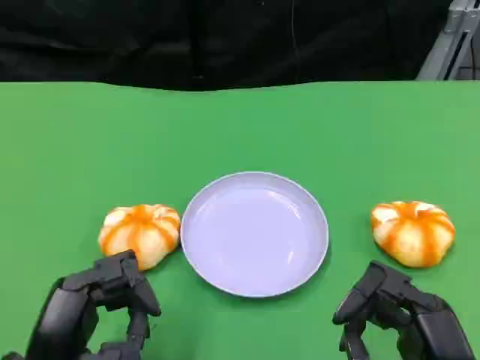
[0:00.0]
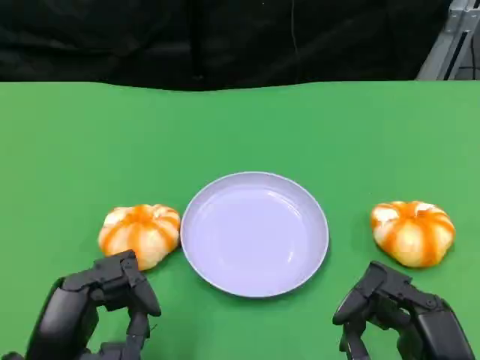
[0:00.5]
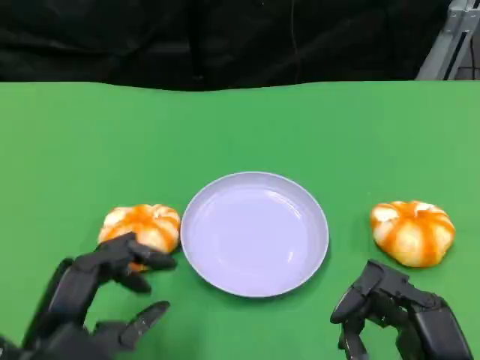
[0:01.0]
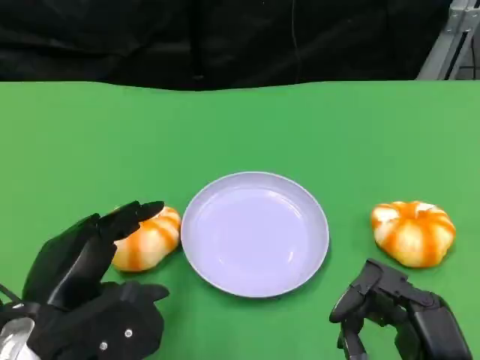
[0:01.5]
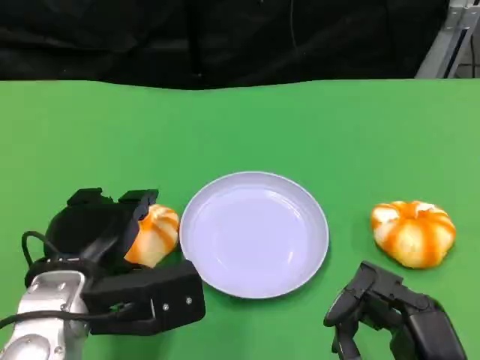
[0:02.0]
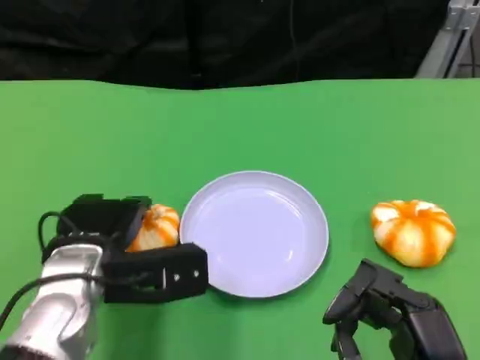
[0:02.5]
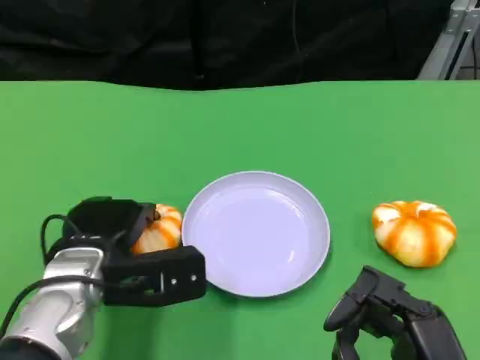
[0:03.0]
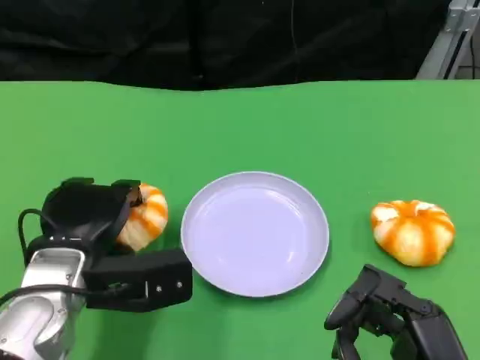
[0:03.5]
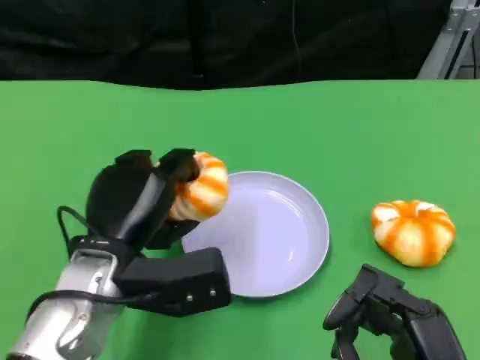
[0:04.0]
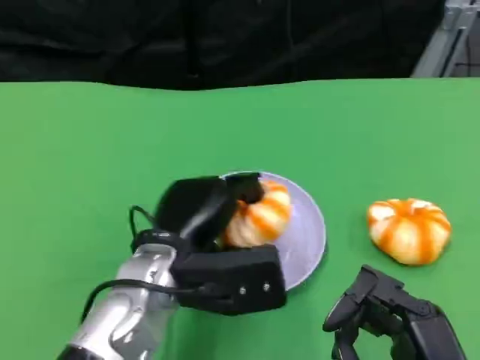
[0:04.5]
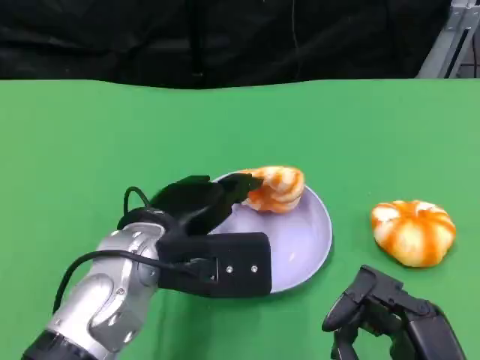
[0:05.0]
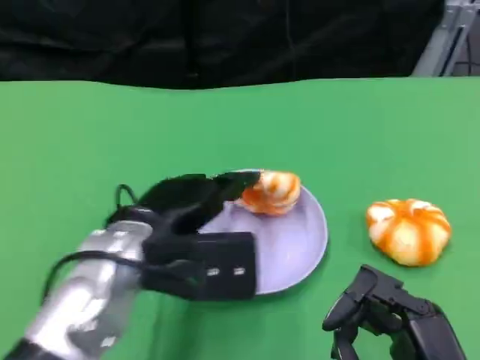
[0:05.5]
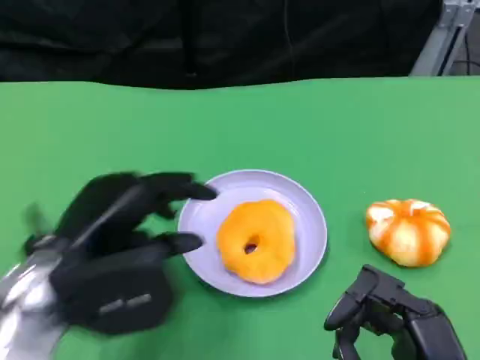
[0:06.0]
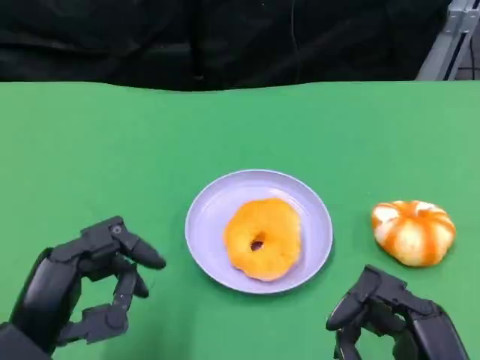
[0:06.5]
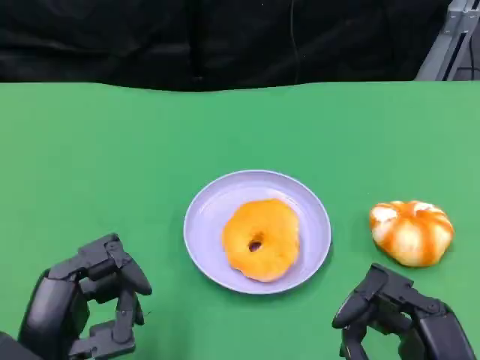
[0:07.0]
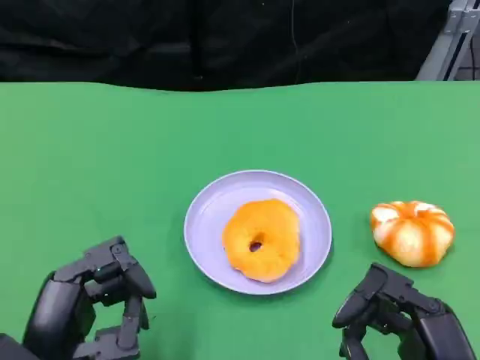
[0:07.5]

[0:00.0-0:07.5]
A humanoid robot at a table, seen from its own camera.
Task of the whole recording: Grasp the bread from the table and place it into the plate.
0:00.0 to 0:02.0: The left hand shifts about 10 cm forward.
0:04.0 to 0:05.5: The left hand shifts by approximately 5 cm.
0:05.5 to 0:07.5: The left hand travels backward, to the left and downward by approximately 15 cm.

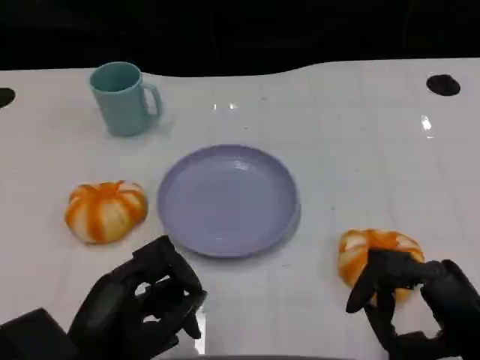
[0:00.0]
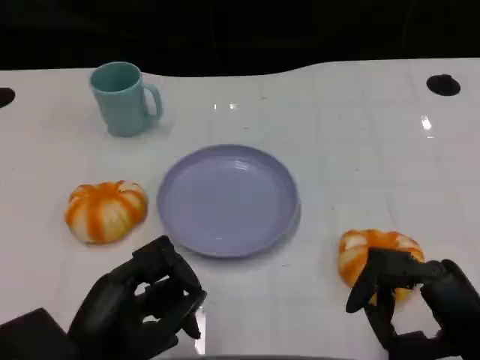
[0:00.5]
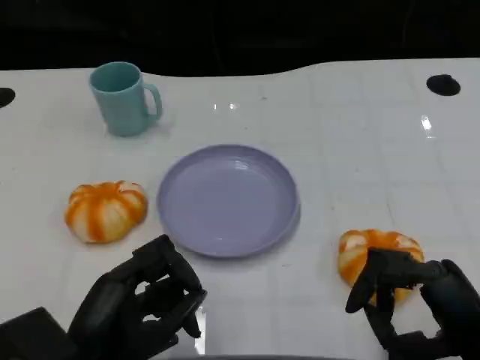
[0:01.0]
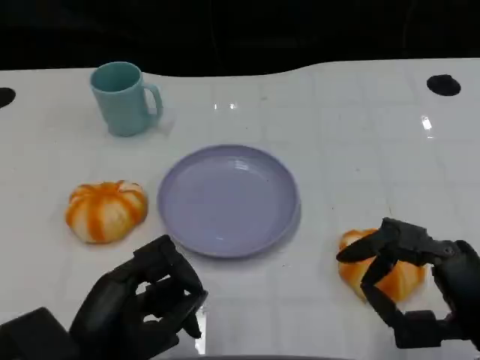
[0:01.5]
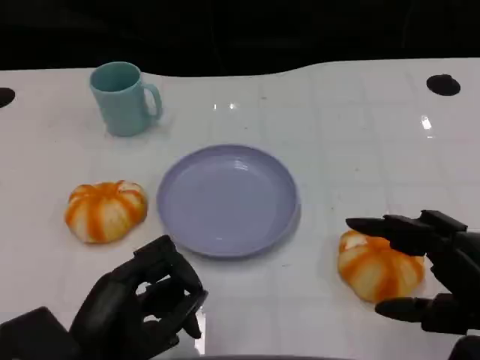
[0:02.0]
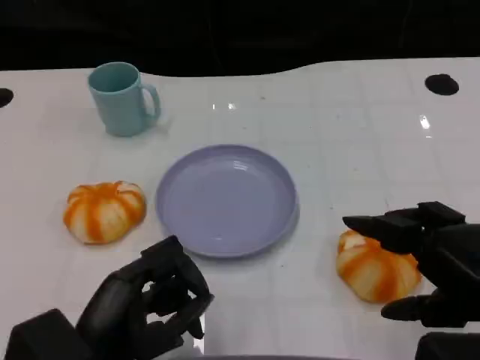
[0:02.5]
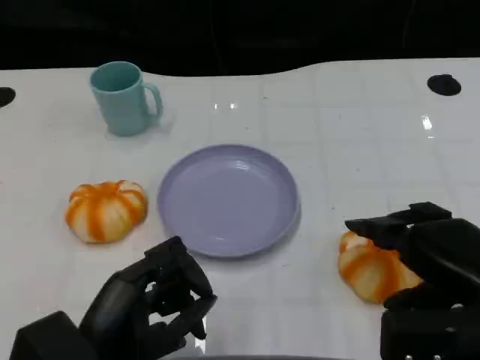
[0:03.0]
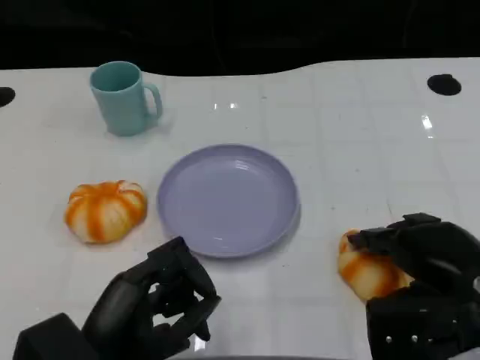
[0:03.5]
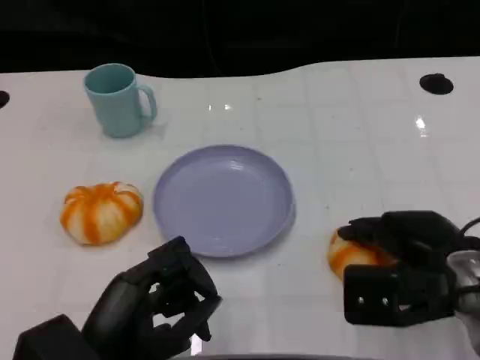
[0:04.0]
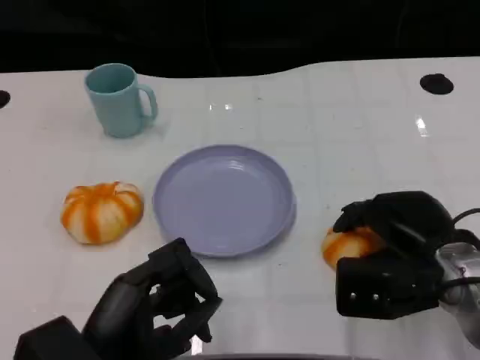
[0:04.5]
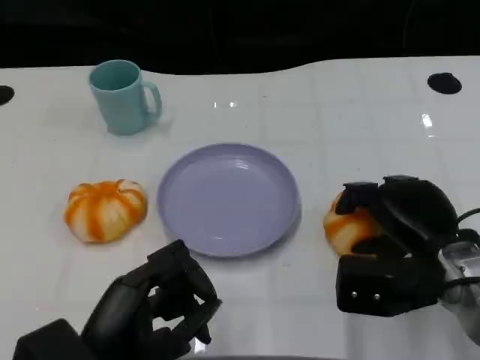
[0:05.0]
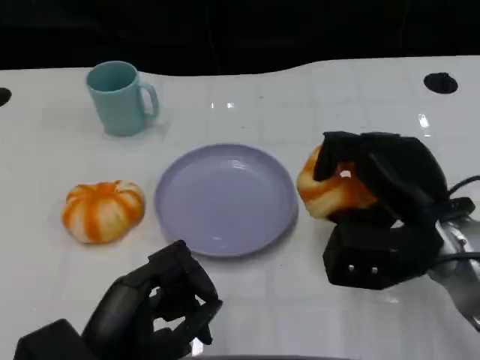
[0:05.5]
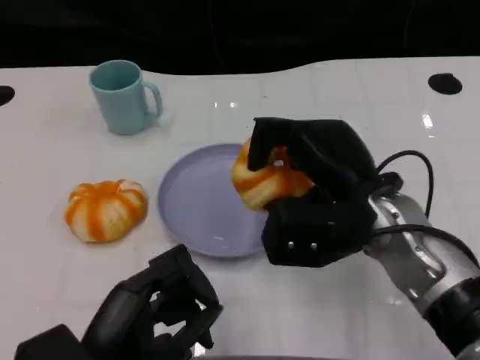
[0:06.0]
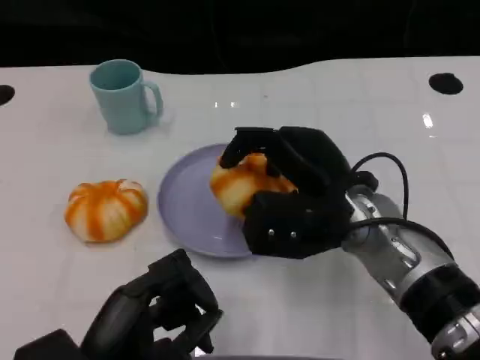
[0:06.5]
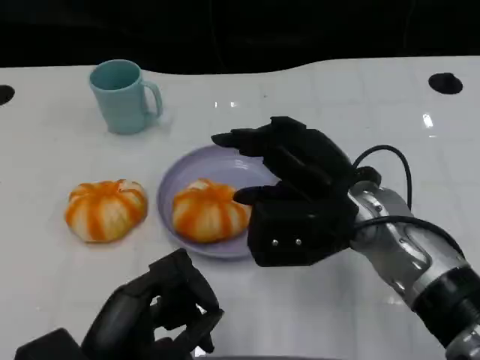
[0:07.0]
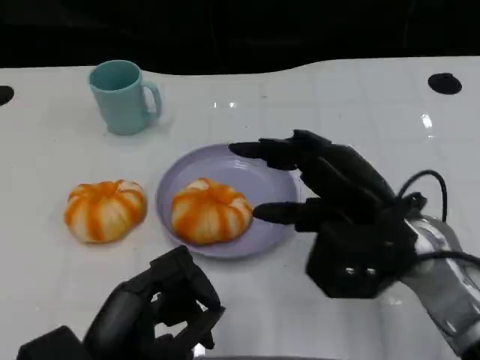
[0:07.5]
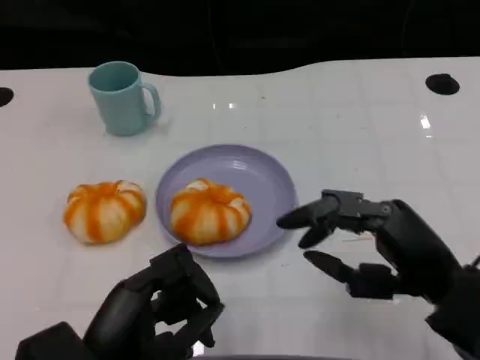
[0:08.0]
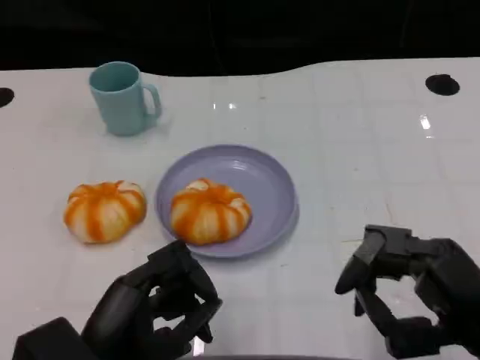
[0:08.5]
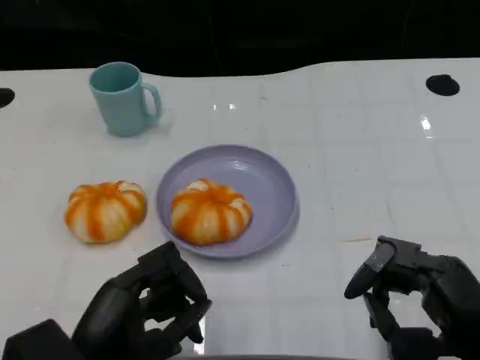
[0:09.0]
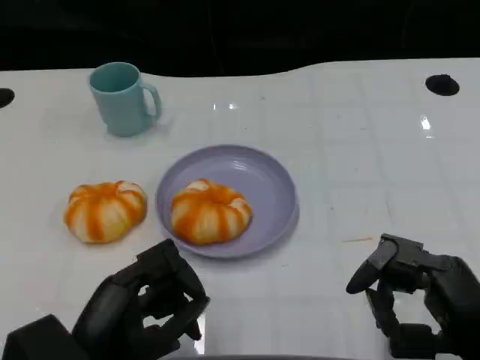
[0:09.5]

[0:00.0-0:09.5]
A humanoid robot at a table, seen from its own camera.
Task of the whole recording: Grasp the bread from the table and place it into the plate.
0:00.0 to 0:02.0: The right hand moves upward, roughly 5 cm.
0:02.0 to 0:04.0: The right hand heads forward, covering roughly 10 cm.
0:05.5 to 0:07.5: The right hand moves approximately 10 cm to the left and comes back.
0:07.5 to 0:09.5: The right hand goes about 15 cm backward, to the right and downward.

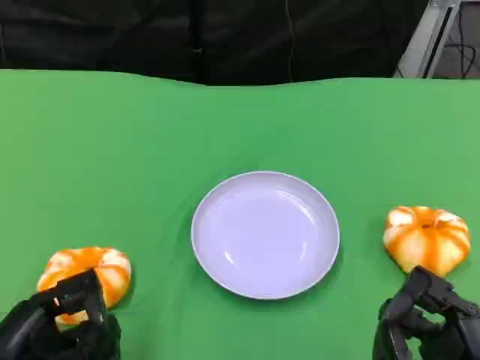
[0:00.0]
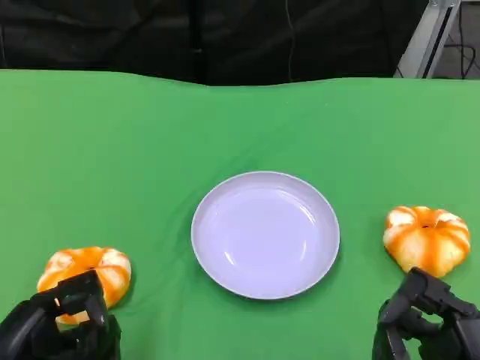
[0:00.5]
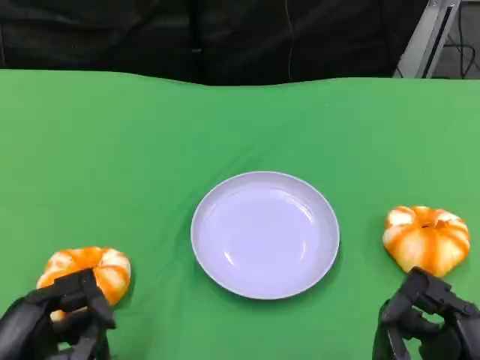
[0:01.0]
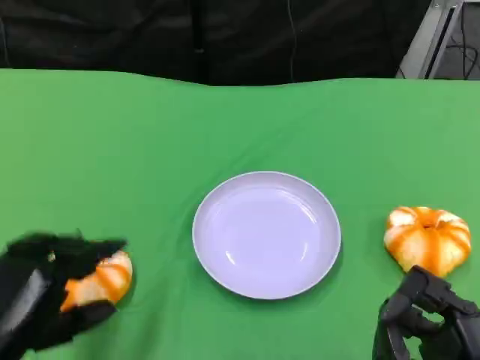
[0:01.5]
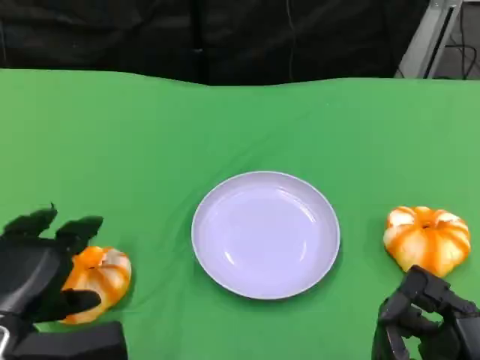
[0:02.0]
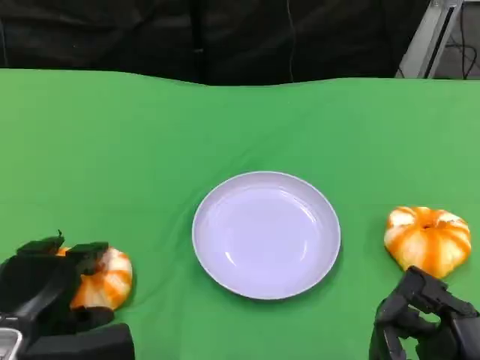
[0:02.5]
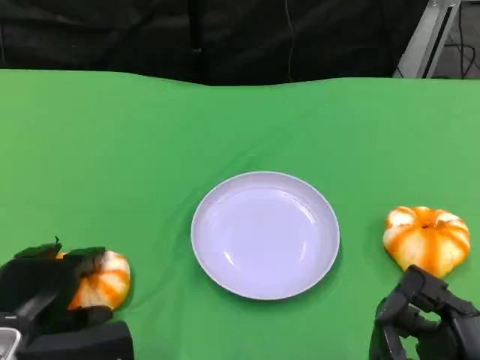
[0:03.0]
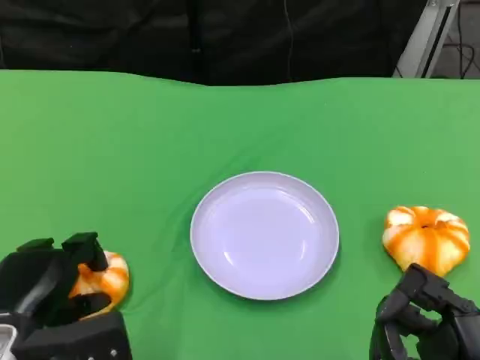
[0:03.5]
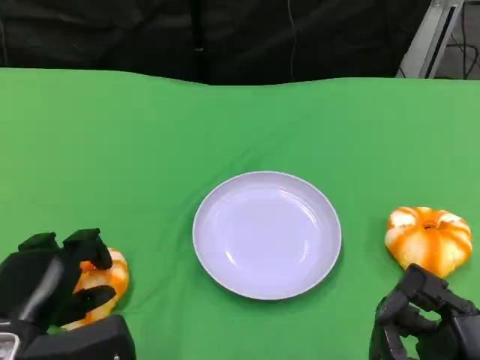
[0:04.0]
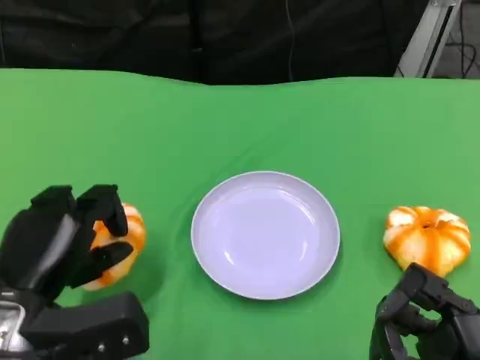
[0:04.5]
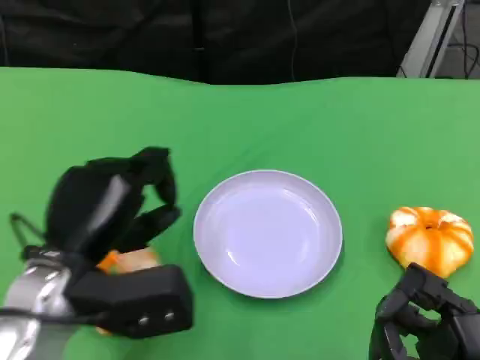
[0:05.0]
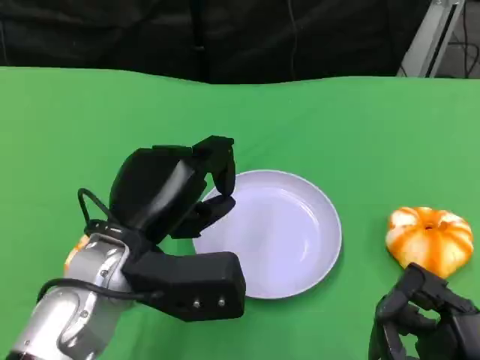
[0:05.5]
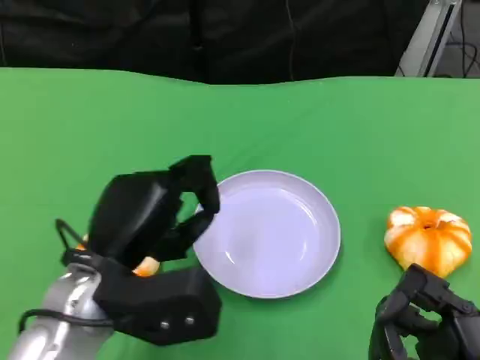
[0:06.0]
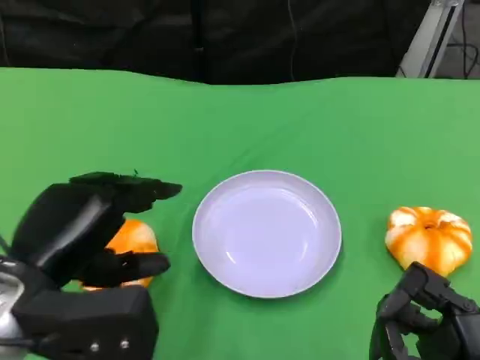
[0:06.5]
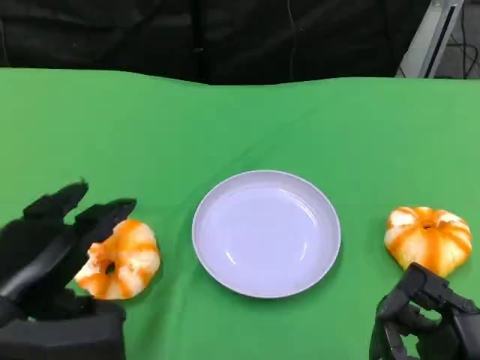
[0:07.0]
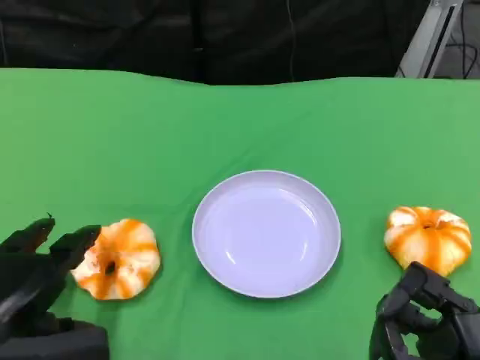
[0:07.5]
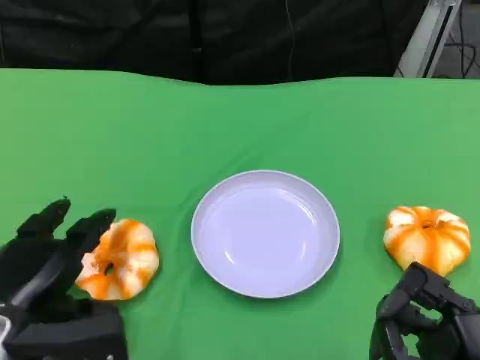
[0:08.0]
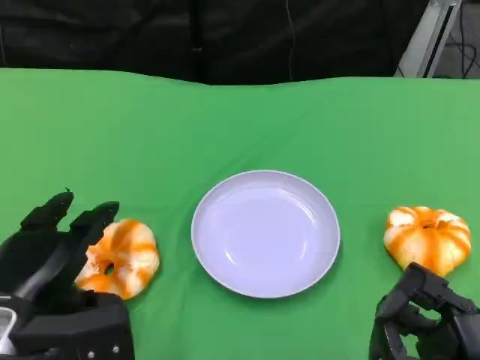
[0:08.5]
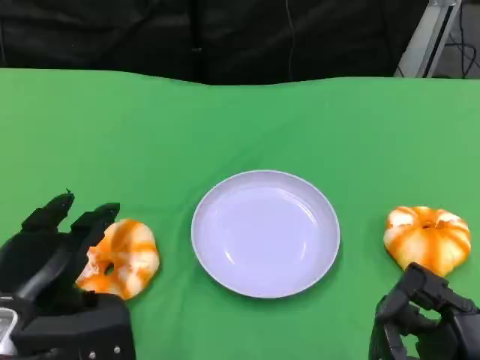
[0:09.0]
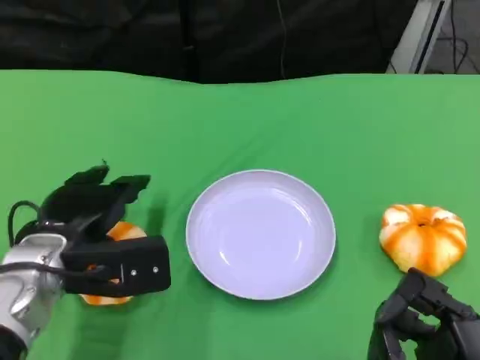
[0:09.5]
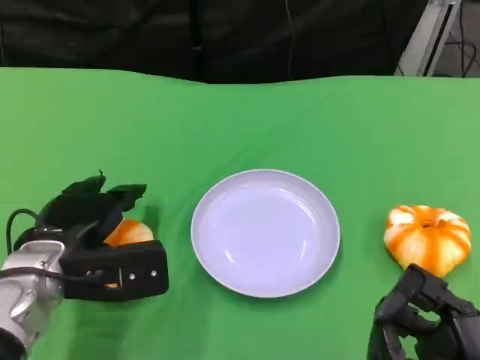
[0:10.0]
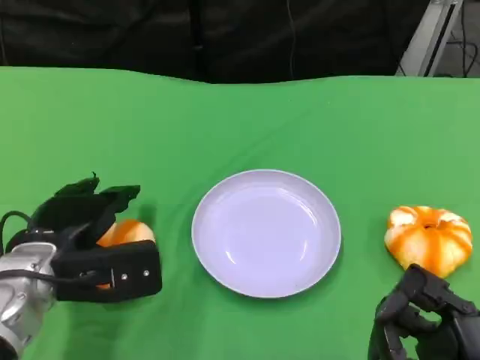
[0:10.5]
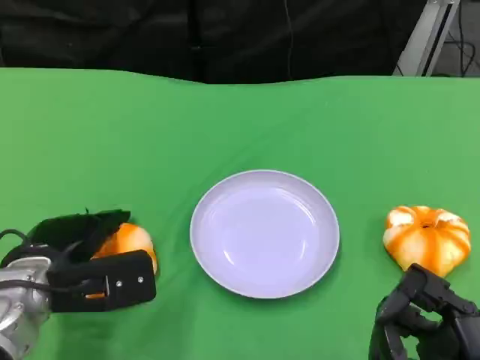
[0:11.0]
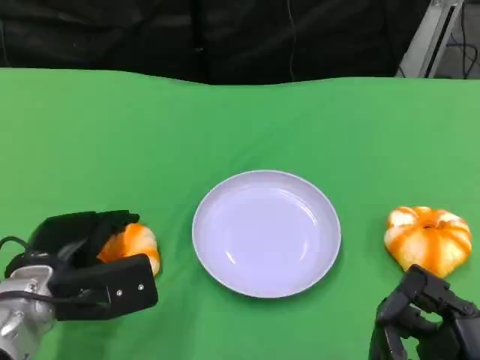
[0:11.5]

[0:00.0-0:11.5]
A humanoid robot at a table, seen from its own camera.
Task of the whole recording: Grasp the bread from the table and place it into the plate.
0:00.0 to 0:02.0: The left hand moves forward, approximately 5 cm.
0:02.0 to 0:04.0: There are only small adjustments of the hands.
0:04.0 to 0:06.0: The left hand heads upward and to the right, covering roughly 10 cm.
0:06.0 to 0:07.5: The left hand goes about 10 cm to the left.
0:07.5 to 0:09.5: The left hand heads forward and to the right, covering some 10 cm.
0:09.5 to 0:11.5: There are only small adjustments of the hands.
